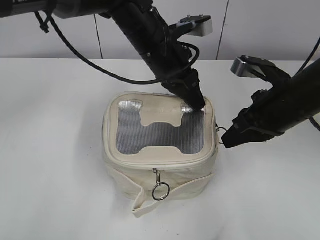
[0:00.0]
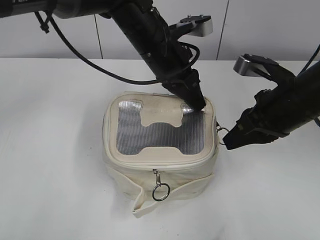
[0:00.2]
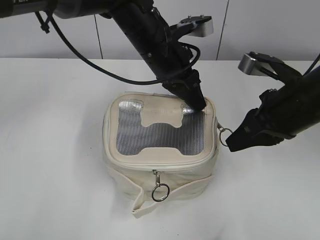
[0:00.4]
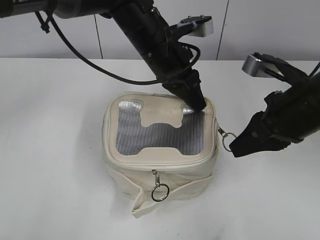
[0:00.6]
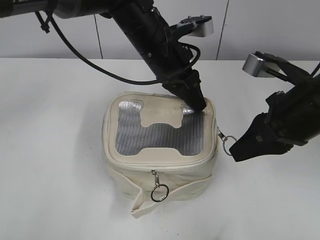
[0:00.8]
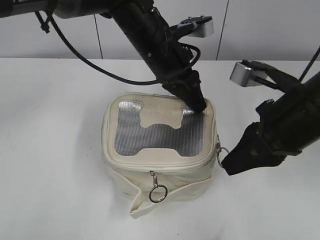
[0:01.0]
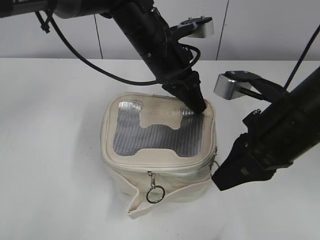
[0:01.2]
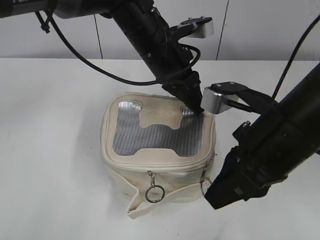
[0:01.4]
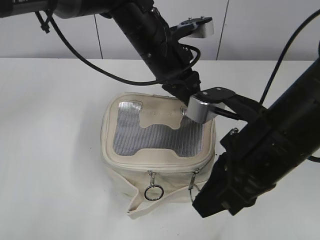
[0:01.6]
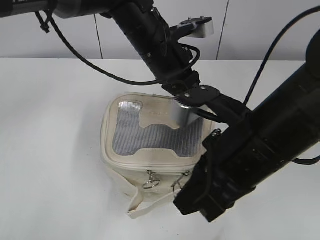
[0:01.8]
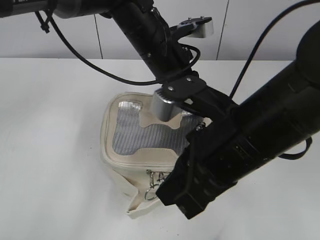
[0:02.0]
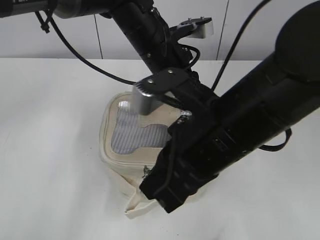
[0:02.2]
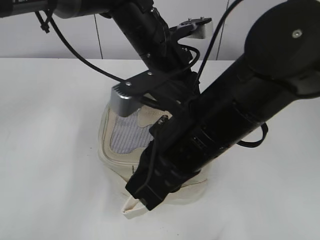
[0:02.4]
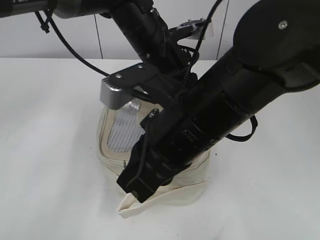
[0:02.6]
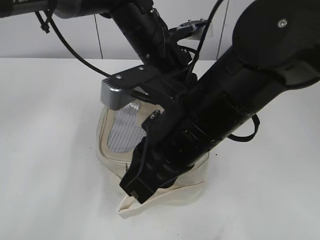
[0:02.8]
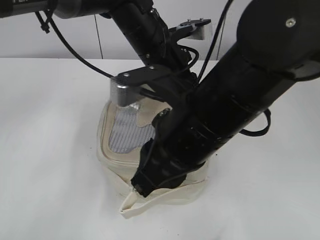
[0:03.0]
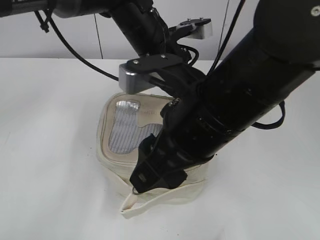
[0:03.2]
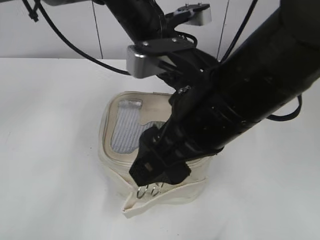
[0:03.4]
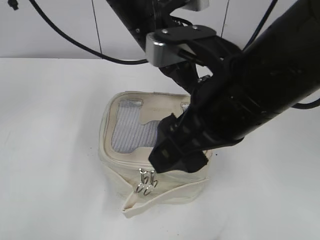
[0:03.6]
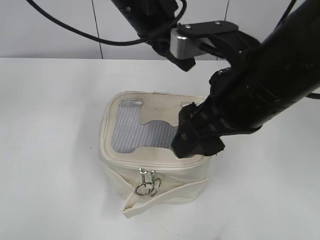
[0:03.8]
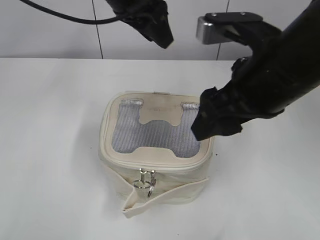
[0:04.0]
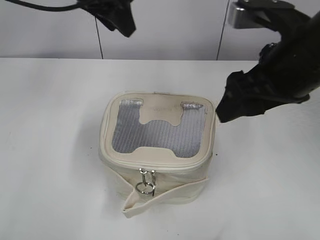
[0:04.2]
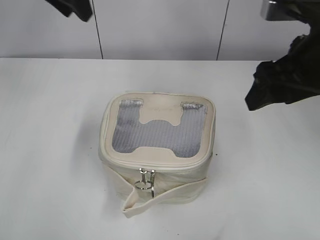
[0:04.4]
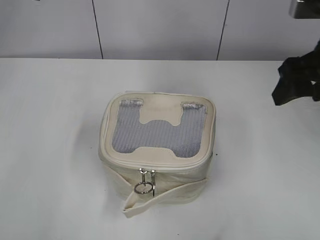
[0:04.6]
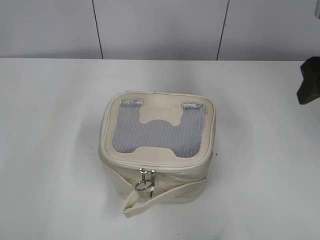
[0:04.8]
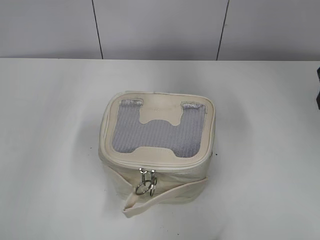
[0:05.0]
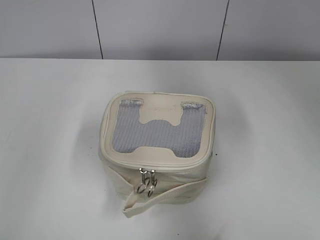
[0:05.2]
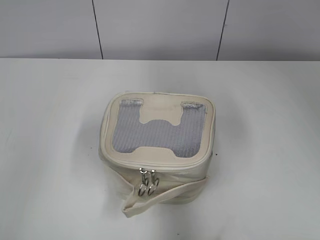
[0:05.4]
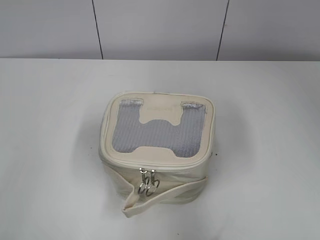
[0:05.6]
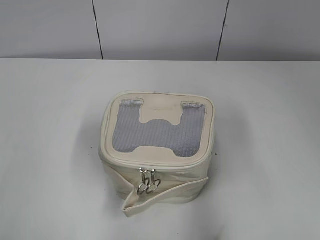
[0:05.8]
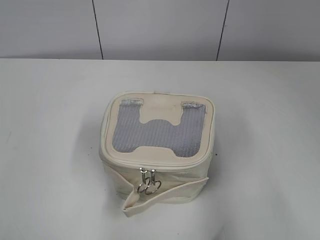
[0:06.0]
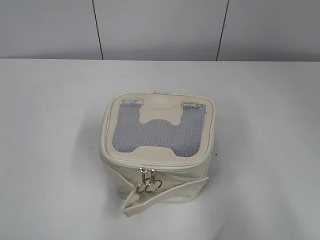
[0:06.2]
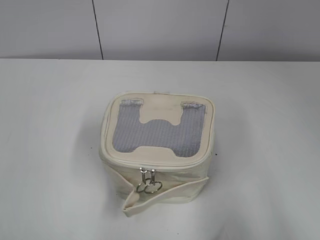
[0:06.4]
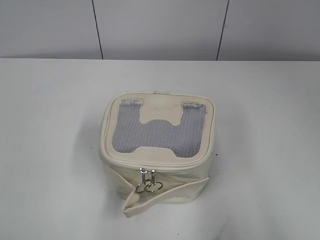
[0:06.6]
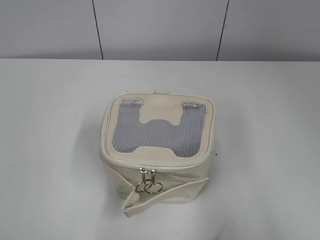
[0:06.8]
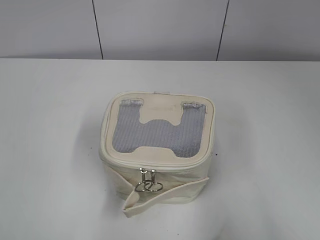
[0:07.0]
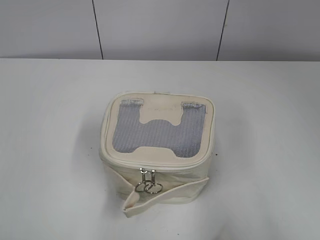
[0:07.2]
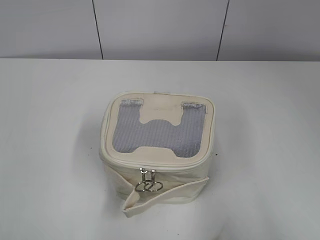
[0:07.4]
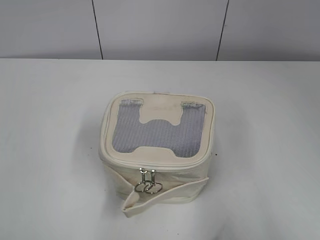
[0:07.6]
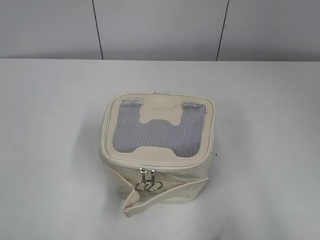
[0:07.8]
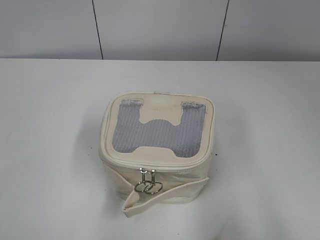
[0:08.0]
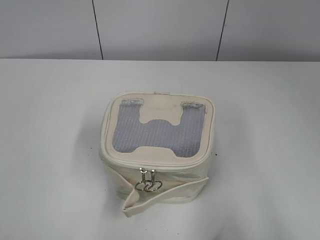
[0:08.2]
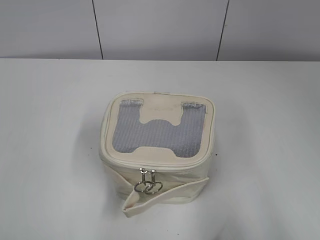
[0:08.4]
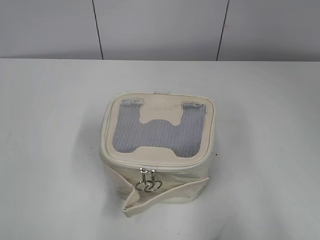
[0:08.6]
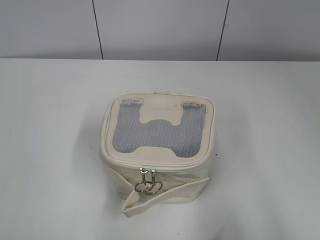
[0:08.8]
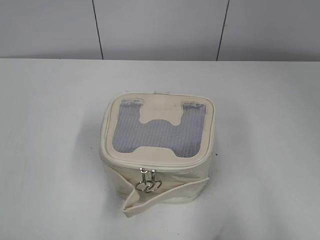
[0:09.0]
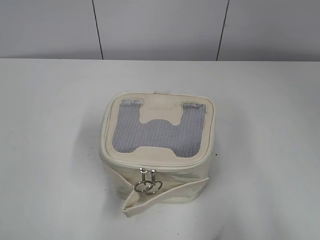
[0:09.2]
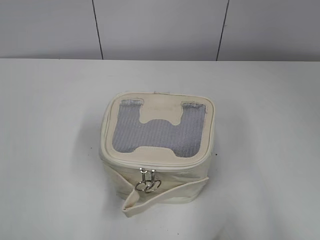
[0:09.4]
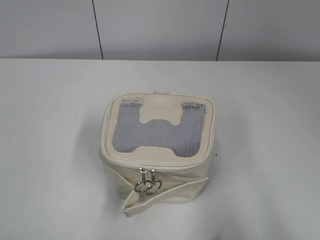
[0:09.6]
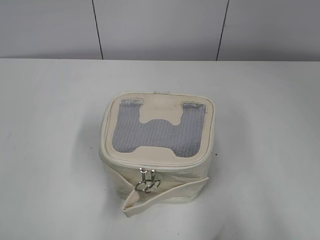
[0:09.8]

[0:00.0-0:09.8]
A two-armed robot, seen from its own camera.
Step, 0:00.0 to 0:03.4: Zip up the bag with your right hand.
0:00.0 to 0:01.4: The right gripper is displaced backward by some 10 cm.
0:01.4 to 0:02.8: The right gripper moves to the left, approximately 10 cm.
0:02.8 to 0:04.2: The right gripper goes approximately 10 cm to the right and upward, and opens its fingers. Meanwhile the left gripper travels upward and to the left by roughly 15 cm, and opens up.
0:04.2 to 0:05.6: The right gripper is displaced to the right by roughly 15 cm. Meanwhile the left gripper travels backward and to the left by roughly 35 cm.
0:05.6 to 0:07.0: The left gripper is displaced backward by some 10 cm. The right gripper shifts some 20 cm backward.
0:08.4 to 0:09.8: Both grippers stay put.
